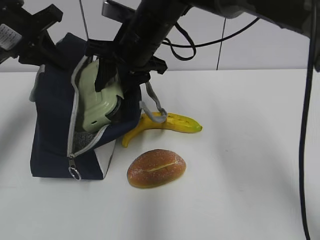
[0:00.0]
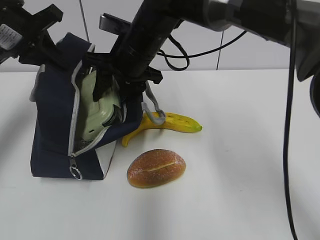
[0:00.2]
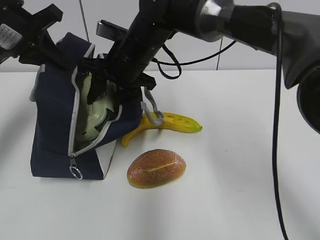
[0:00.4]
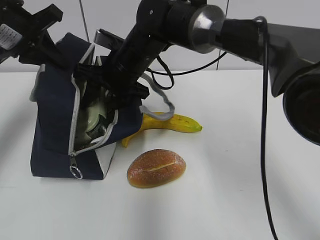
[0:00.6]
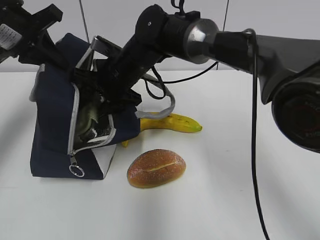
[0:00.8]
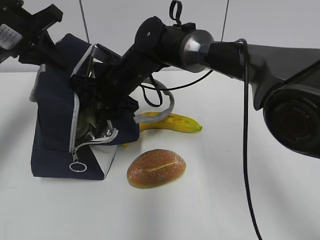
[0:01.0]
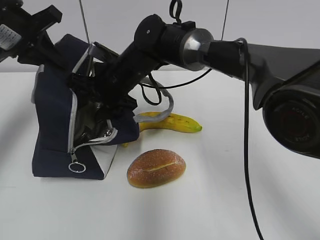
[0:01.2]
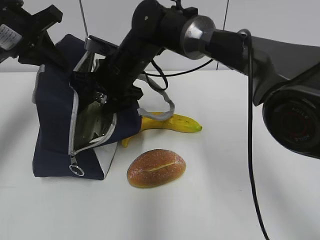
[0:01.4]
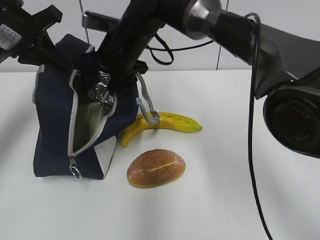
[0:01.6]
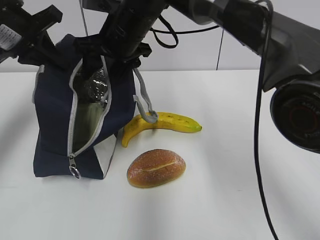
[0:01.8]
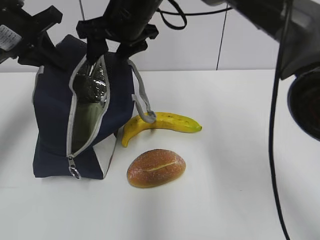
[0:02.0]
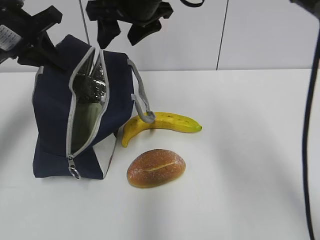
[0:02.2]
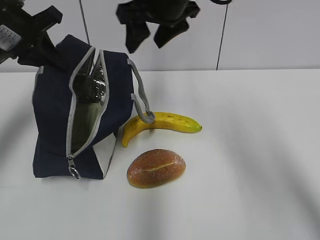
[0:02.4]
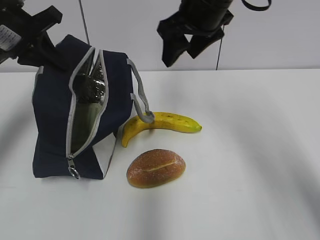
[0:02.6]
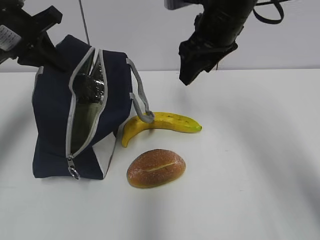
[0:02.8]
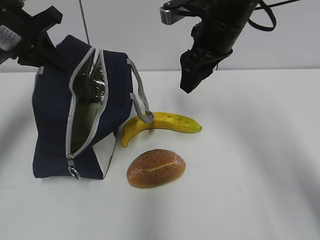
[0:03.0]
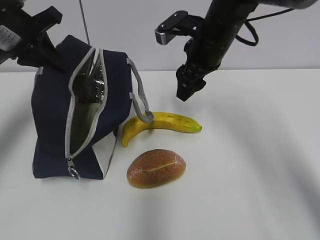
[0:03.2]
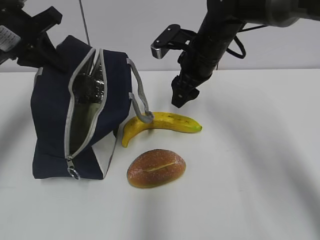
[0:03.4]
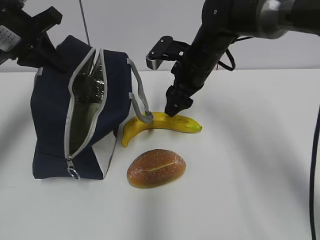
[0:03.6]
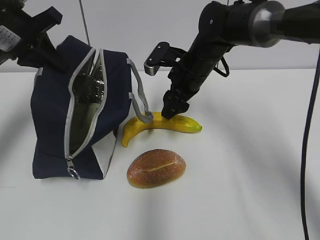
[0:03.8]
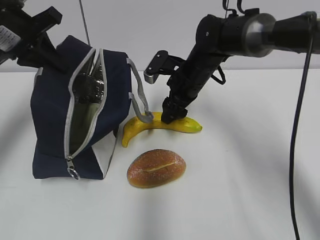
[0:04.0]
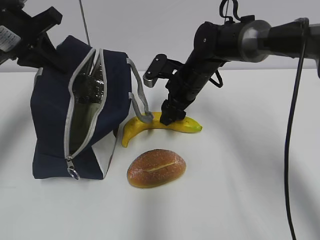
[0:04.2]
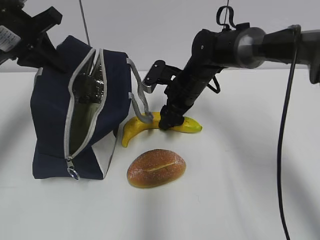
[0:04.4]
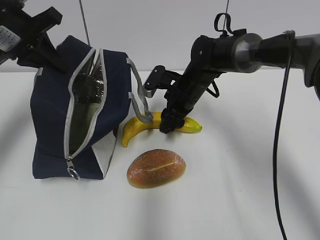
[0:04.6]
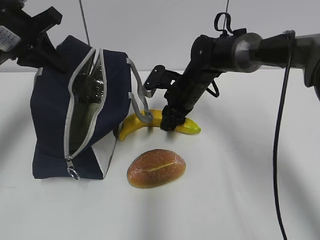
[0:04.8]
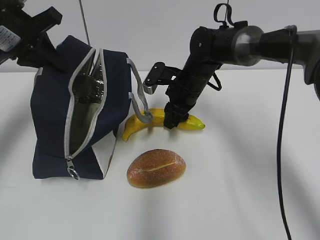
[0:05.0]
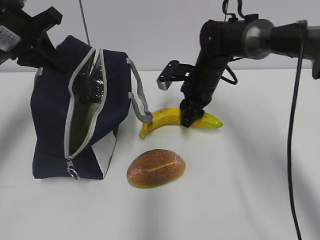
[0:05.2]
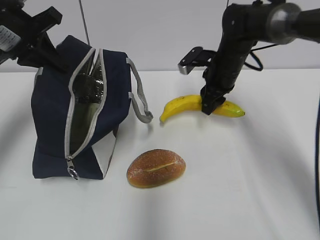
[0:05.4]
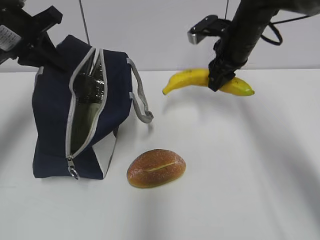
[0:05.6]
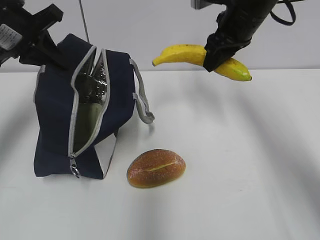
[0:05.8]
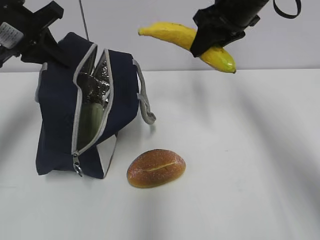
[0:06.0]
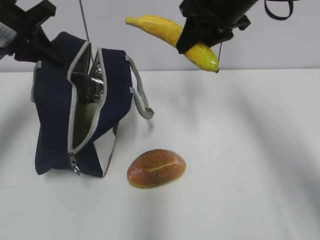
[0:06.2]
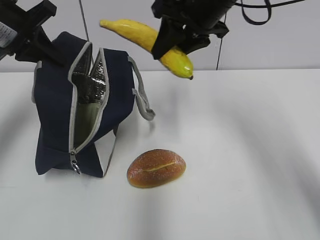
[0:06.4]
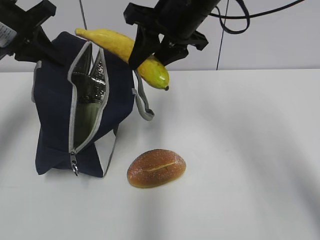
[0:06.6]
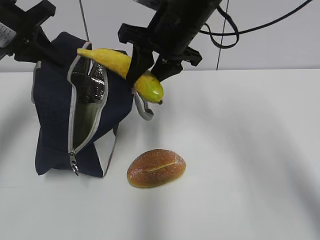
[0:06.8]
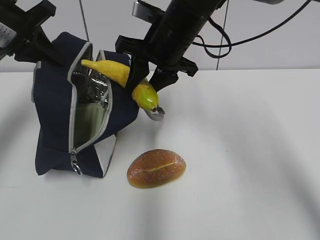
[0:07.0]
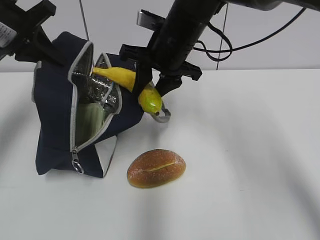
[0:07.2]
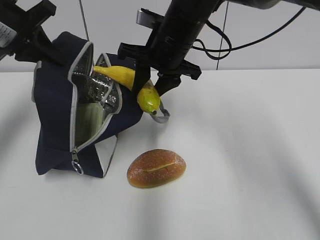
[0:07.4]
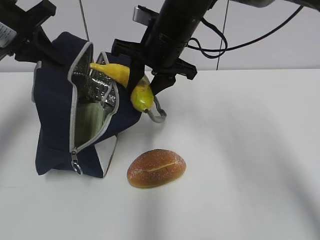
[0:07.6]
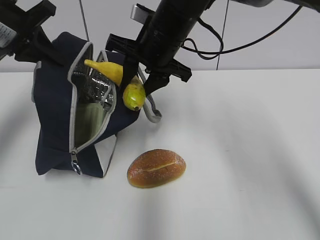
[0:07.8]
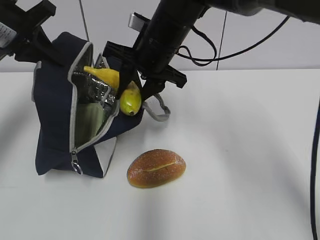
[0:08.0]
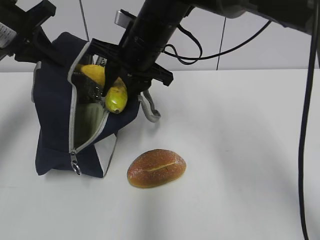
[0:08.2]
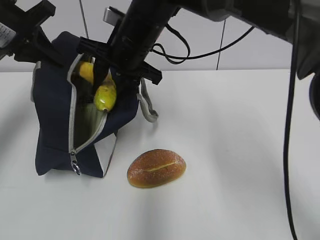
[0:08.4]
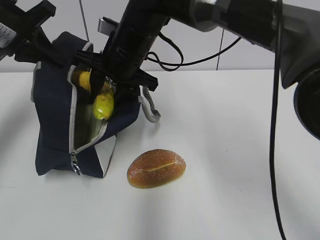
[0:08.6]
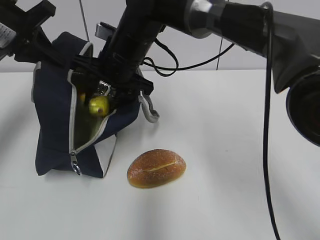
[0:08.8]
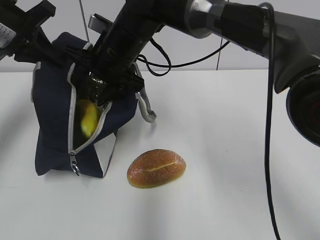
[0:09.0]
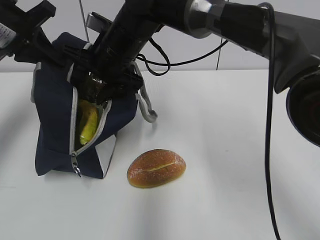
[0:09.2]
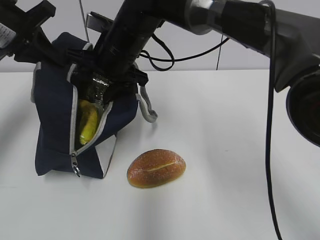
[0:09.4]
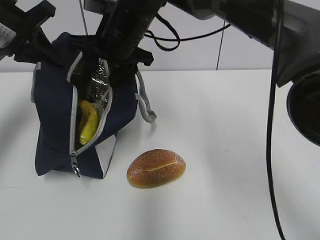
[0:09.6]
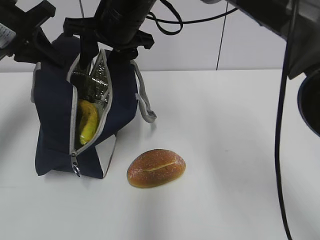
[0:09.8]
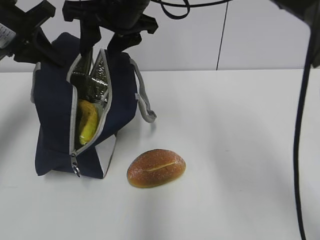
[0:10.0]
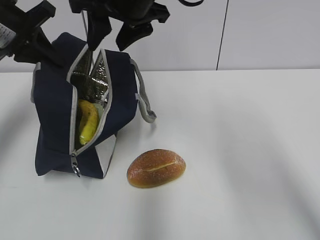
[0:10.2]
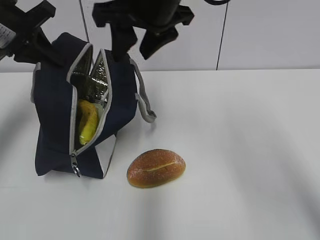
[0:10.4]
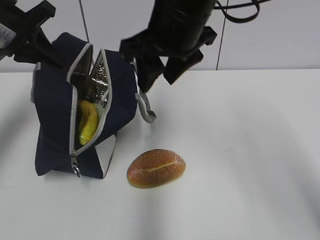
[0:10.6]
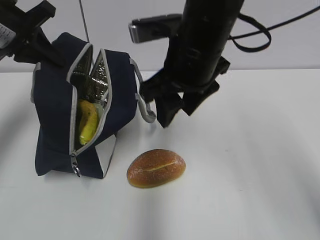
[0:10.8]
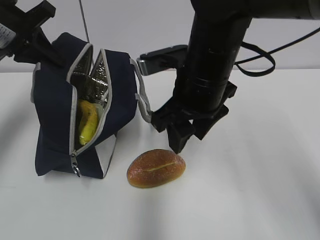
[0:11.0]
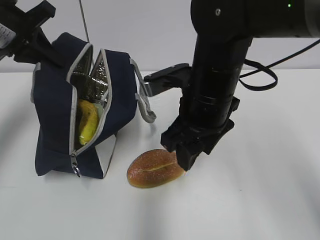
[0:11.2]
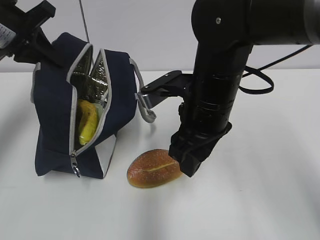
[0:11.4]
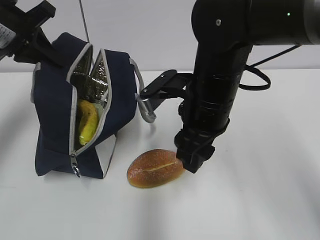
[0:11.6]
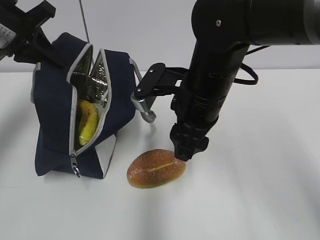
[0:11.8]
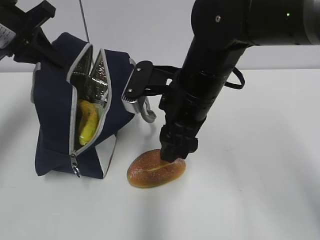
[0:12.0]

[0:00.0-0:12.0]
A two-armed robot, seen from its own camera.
Step, 0:00.0 to 0:01.4: Place it into the bag with your right hand.
Step, 0:01.6 to 0:04.6: Grab the banana with your right hand.
Step, 0:05.0 to 0:09.2: Place it into the bag with your right hand.
0:00.0 to 0:01.6: The right gripper travels downward and back again, roughly 10 cm each way.
0:01.6 to 0:03.0: The right gripper is displaced to the right by approximately 15 cm.
0:03.0 to 0:04.4: The right gripper travels downward by roughly 15 cm.
0:04.4 to 0:06.0: The right gripper moves upward, some 20 cm, and closes its fingers.
0:06.0 to 0:07.6: The right gripper travels to the left by some 10 cm.
0:07.6 to 0:09.0: The right gripper shifts roughly 10 cm to the left.
0:09.0 to 0:10.4: The right gripper shifts about 15 cm upward, to the right and backward.
0:10.4 to 0:12.0: The right gripper goes approximately 10 cm downward.

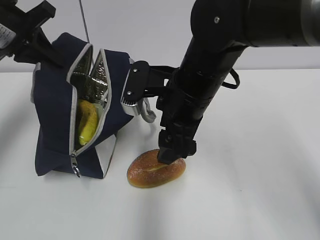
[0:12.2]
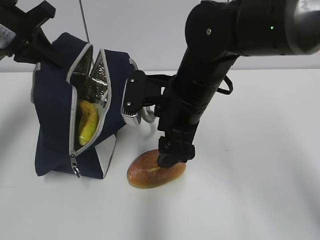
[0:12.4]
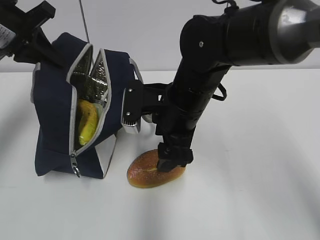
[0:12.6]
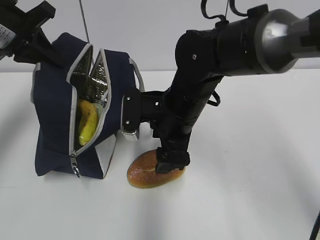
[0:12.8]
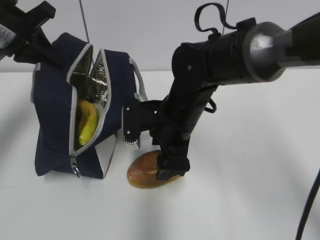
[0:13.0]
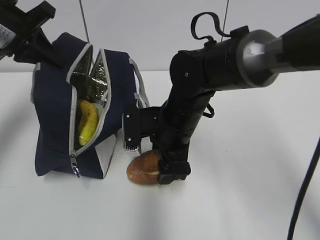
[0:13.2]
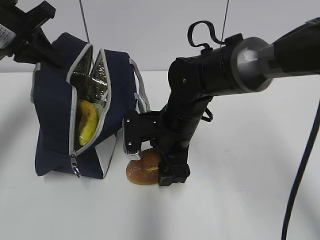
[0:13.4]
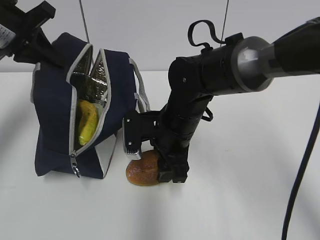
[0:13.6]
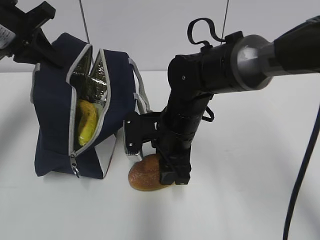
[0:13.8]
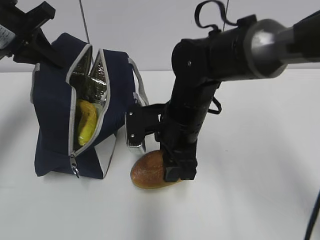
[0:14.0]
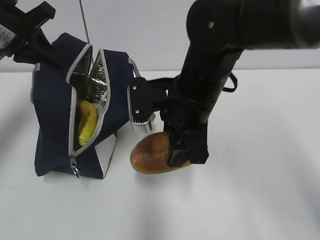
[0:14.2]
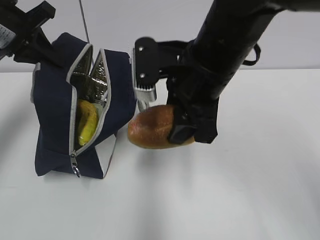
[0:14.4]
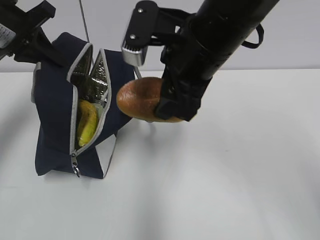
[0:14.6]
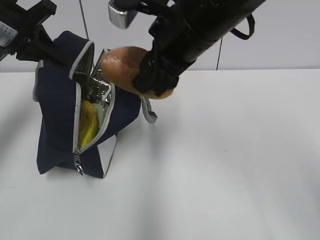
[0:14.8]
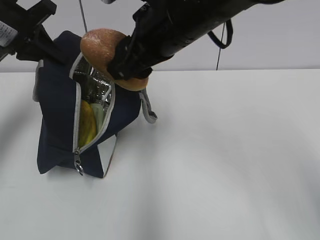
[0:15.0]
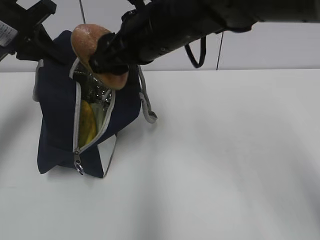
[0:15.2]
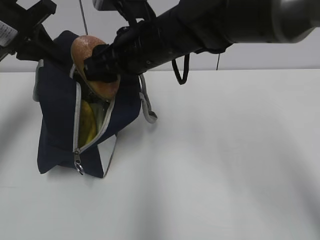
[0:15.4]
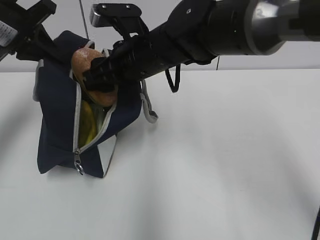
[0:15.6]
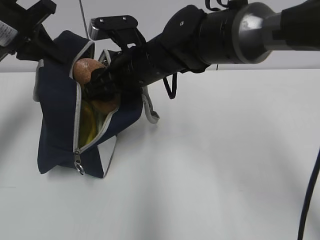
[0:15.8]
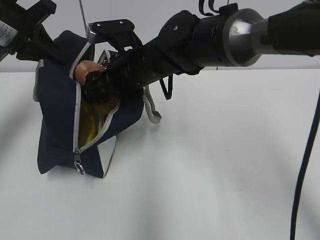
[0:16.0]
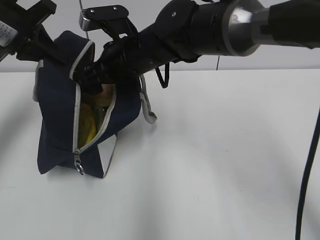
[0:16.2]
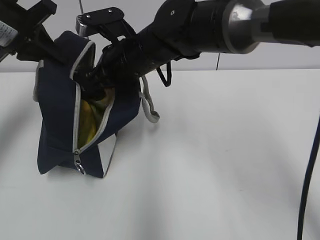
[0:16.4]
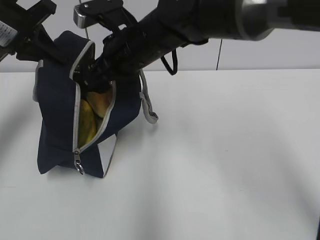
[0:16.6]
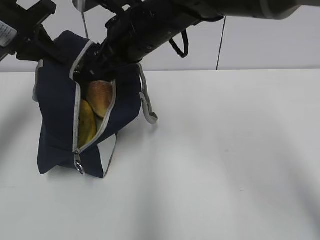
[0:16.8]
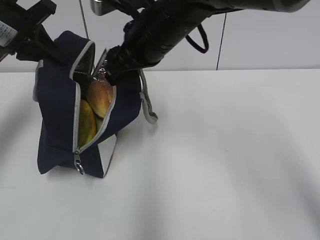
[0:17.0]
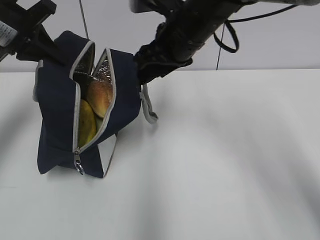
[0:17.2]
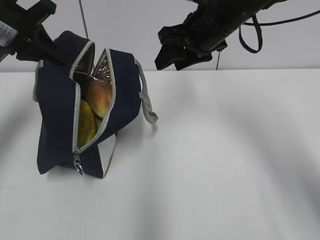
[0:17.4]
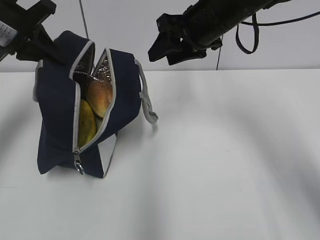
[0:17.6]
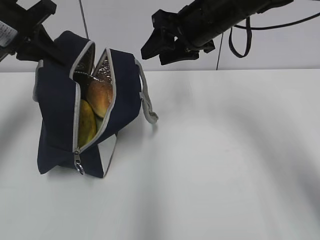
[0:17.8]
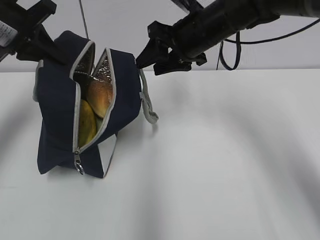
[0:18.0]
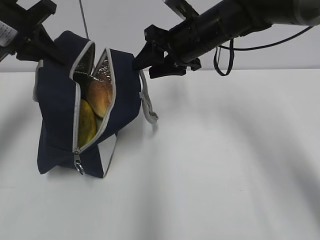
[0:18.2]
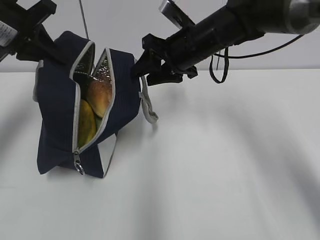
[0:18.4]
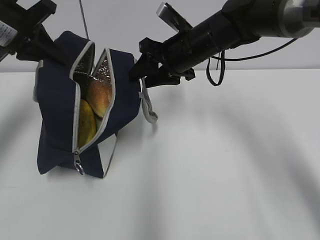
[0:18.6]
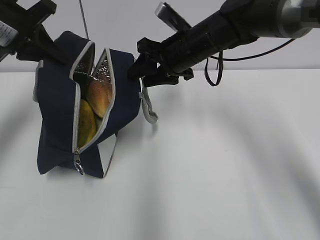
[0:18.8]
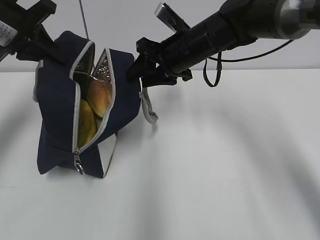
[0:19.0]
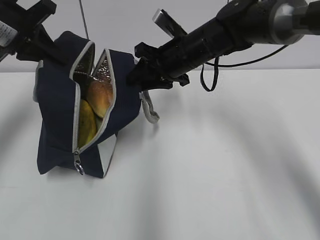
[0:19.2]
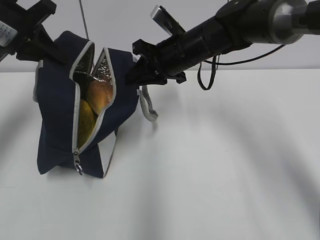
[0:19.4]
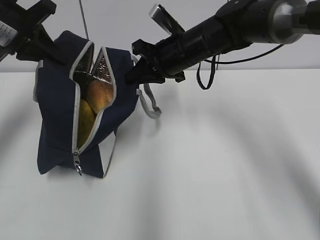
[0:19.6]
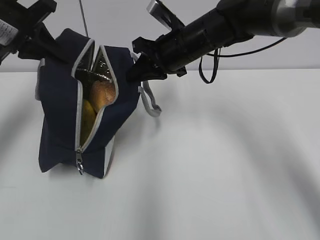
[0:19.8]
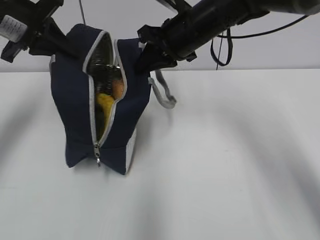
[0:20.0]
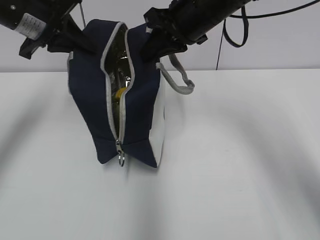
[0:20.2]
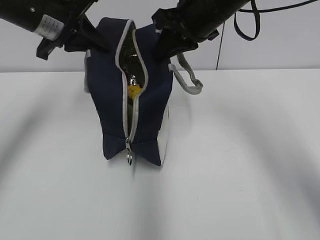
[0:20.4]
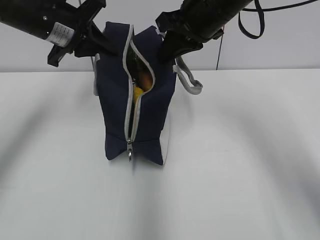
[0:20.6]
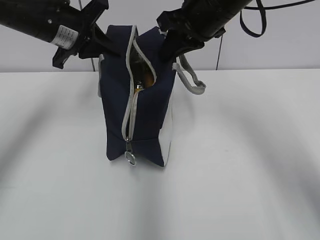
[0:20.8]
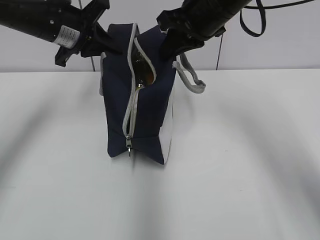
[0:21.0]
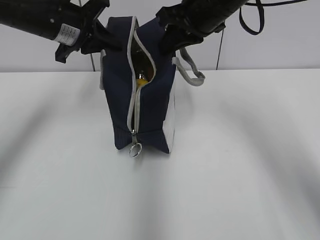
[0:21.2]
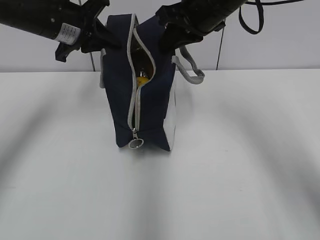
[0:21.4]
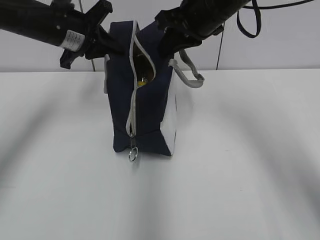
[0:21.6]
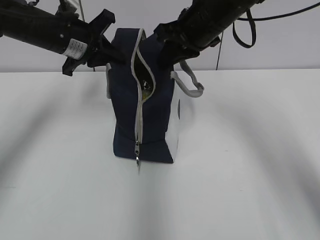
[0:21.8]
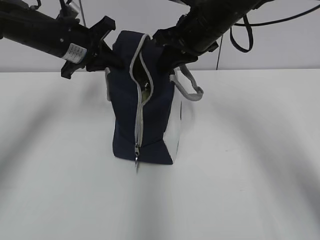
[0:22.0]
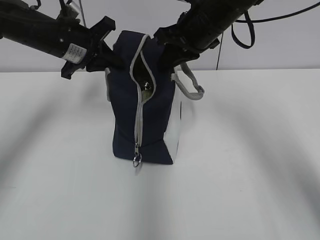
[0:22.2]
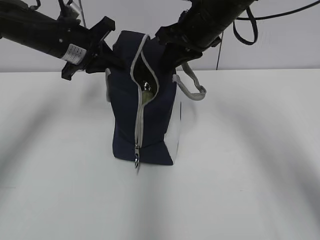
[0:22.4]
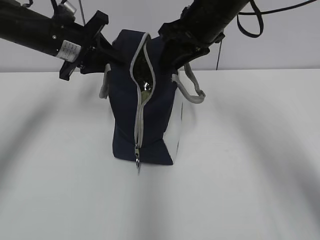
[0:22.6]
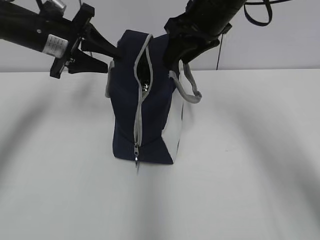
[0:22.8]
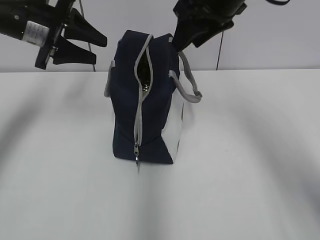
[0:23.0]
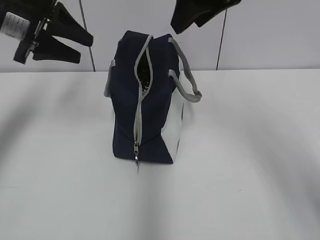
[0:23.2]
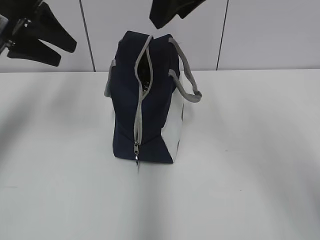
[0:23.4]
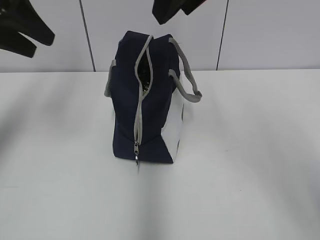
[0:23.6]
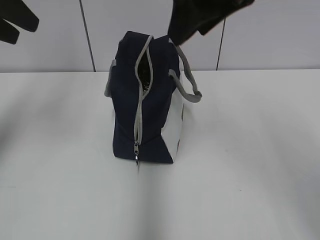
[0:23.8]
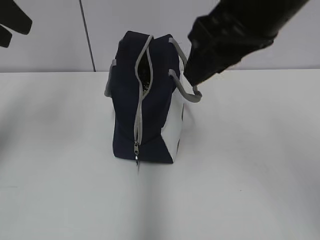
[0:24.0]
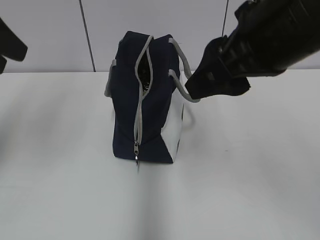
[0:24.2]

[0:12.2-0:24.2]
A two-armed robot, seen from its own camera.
Step, 0:16.6 to 0:19.6: Grab the lunch bag with your right hand.
Step, 0:19.8 to 0:22.6: Move the lunch bag to the right.
0:12.2 to 0:13.8: The right gripper shifts approximately 10 cm downward, and closes.
0:13.8 to 0:15.2: The right gripper moves upward, roughly 15 cm.
0:16.6 to 0:18.2: The right gripper heads to the right, covering about 10 cm.
0:18.2 to 0:19.8: The right gripper closes up.
0:19.8 to 0:21.2: The left gripper is displaced to the right by some 5 cm, while the right gripper heads upward, covering approximately 5 cm.
0:21.2 to 0:22.6: The right gripper opens its fingers. Meanwhile the left gripper opens its fingers.
0:22.6 to 0:24.2: The right gripper moves backward, approximately 20 cm, while the left gripper is displaced backward, upward and to the left by about 20 cm.
